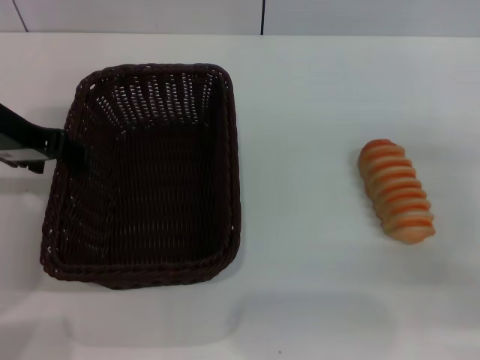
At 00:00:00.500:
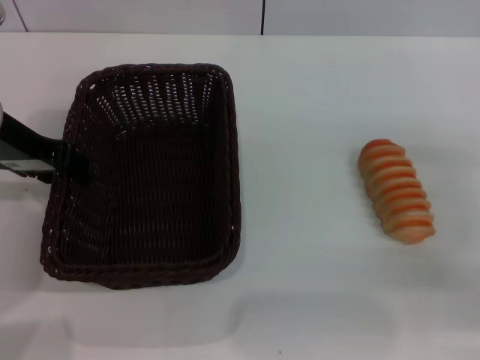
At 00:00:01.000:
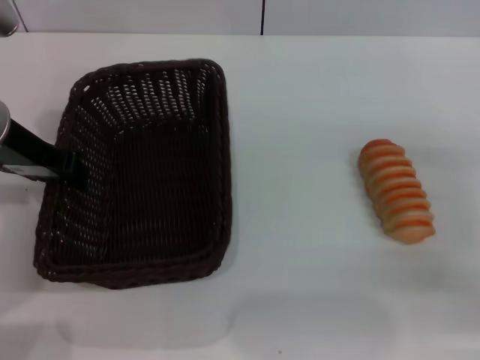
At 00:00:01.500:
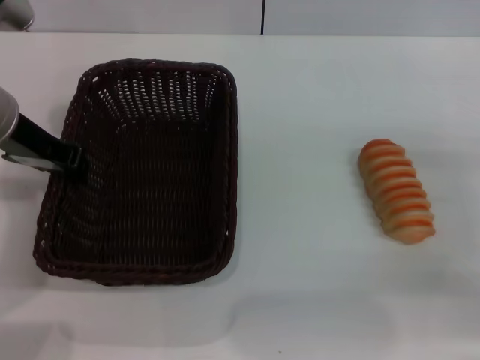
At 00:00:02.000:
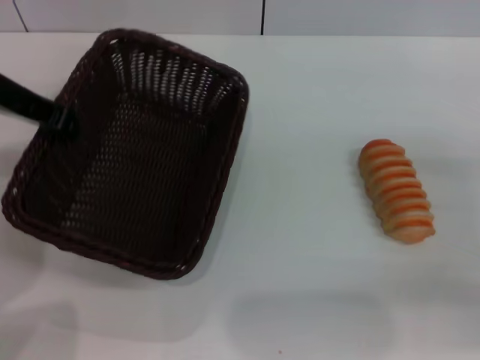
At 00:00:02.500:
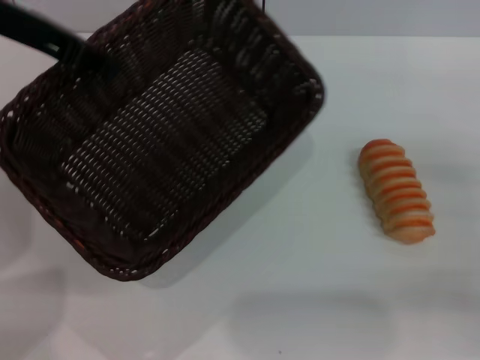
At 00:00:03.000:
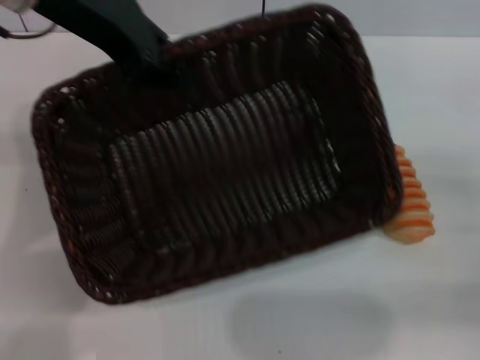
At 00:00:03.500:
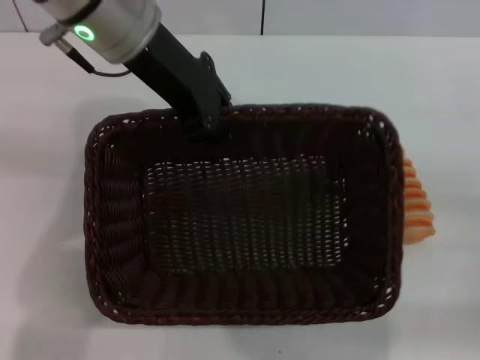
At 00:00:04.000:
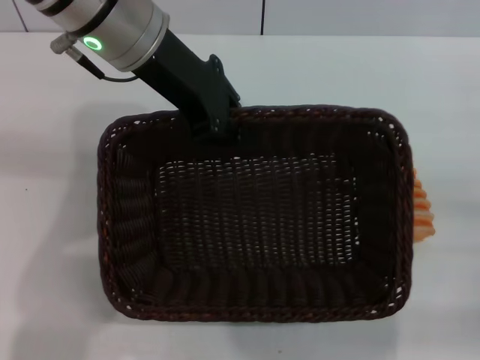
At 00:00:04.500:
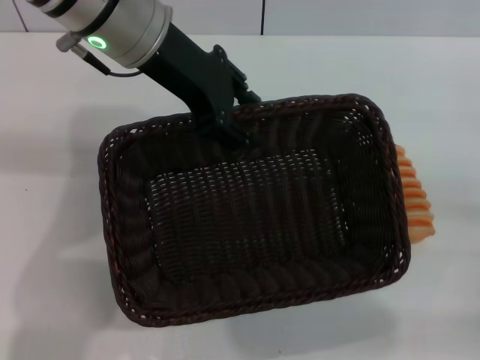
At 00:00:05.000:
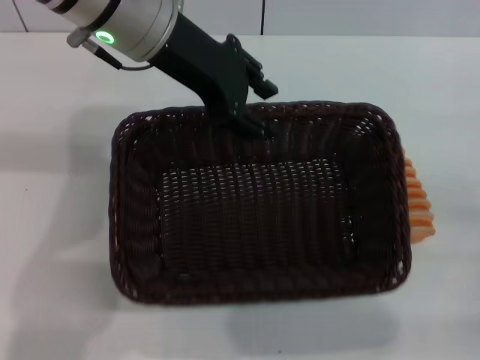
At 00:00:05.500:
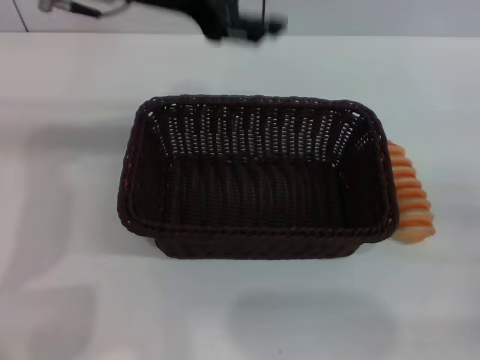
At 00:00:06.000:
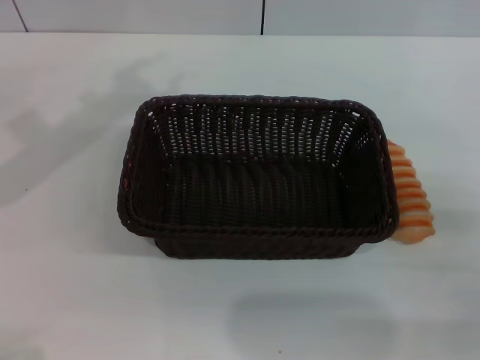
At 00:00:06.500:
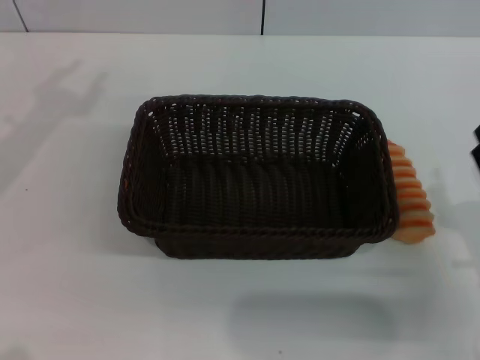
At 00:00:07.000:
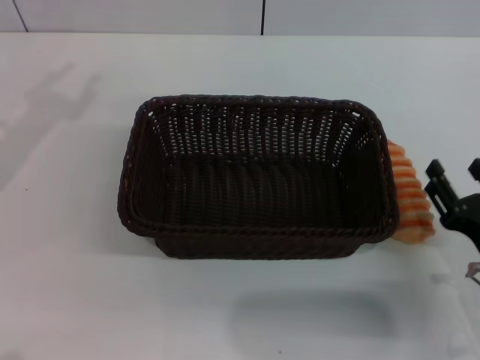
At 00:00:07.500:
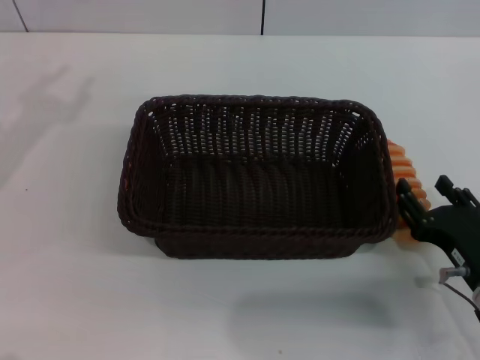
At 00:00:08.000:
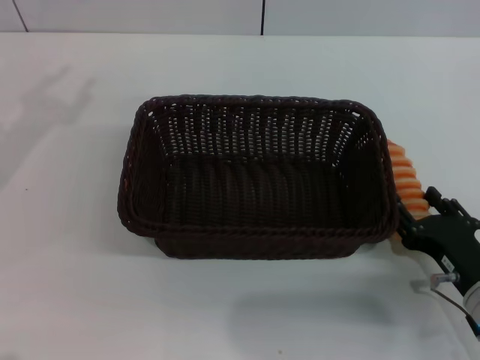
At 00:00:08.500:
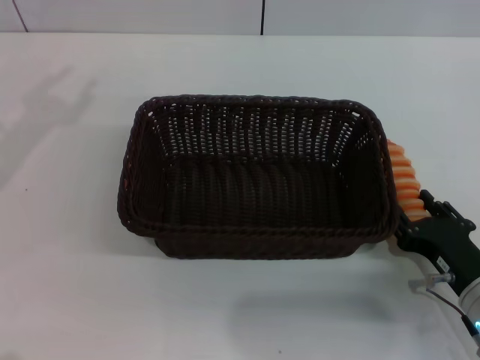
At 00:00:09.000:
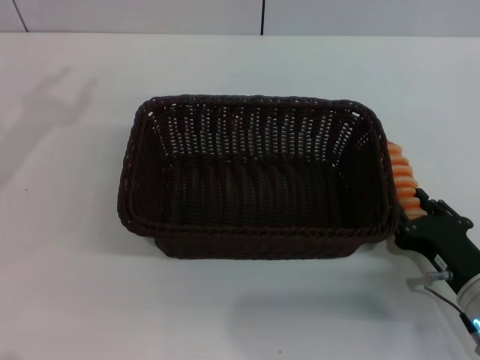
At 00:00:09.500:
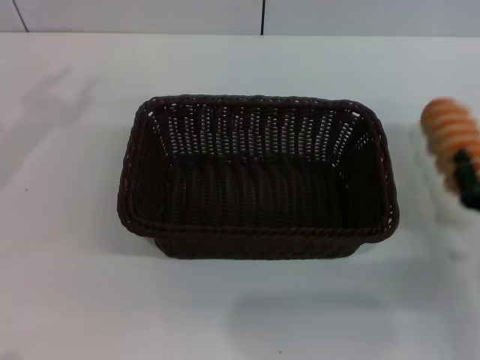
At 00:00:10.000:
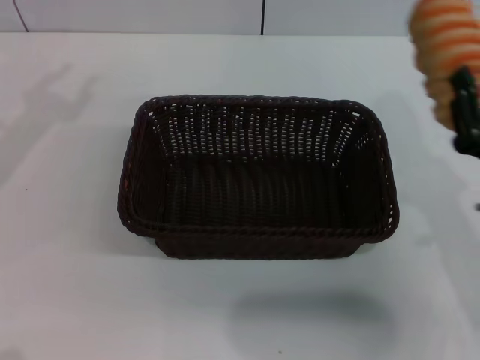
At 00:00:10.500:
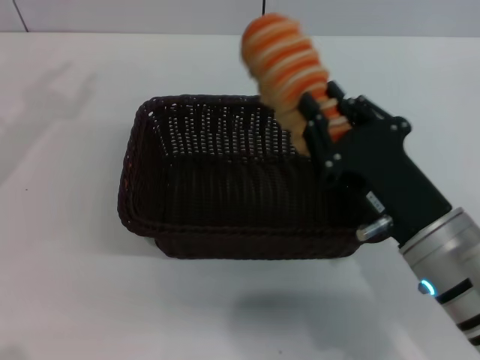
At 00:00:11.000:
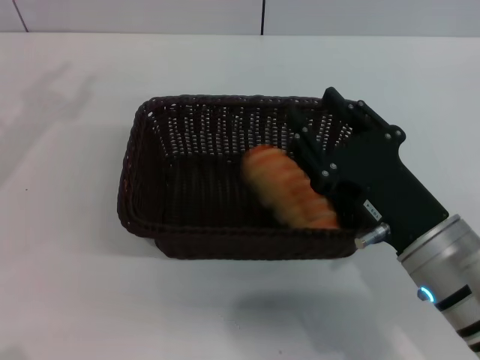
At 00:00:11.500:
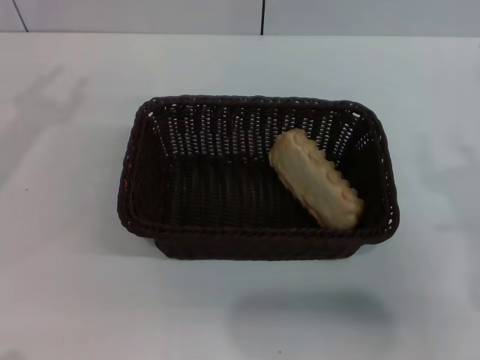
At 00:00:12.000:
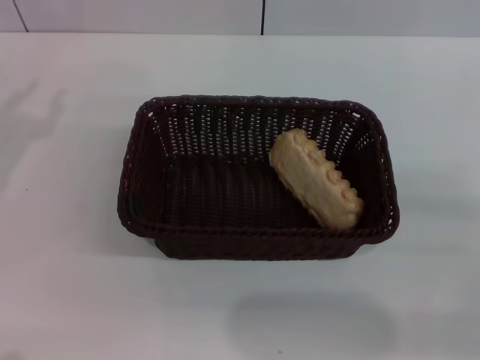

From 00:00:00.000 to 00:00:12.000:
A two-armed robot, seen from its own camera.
Step, from 00:00:00.000 to 00:00:02.000: Pick up the dark basket with the left gripper.
Step, from 00:00:02.500 to 00:00:05.000: Place the dark basket in the center of view with the left gripper.
Step, from 00:00:05.500 to 00:00:09.500: Pick up the long bread with the right gripper.
Step, from 00:00:10.000 to 00:00:11.000: Place the long bread into the dark basket with the right gripper.
From 00:00:00.000 to 00:00:02.000: The left gripper closes up.
From 00:00:02.000 to 00:00:04.000: The left gripper travels to the right by approximately 15 cm. Meanwhile the right gripper heads backward, covering about 5 cm.
From 00:00:04.000 to 00:00:06.000: The left gripper moves to the left, about 15 cm, and opens up.
From 00:00:06.000 to 00:00:08.000: The right gripper is displaced to the left and downward by about 10 cm.
From 00:00:08.000 to 00:00:10.000: The right gripper shifts some 10 cm upward, and closes up.
From 00:00:10.000 to 00:00:12.000: The left gripper travels downward by about 10 cm. Meanwhile the right gripper travels to the right by about 10 cm, and opens.
